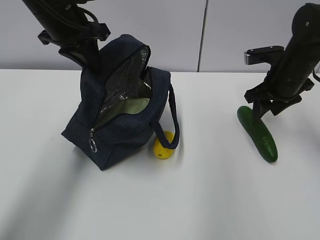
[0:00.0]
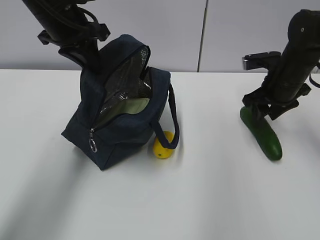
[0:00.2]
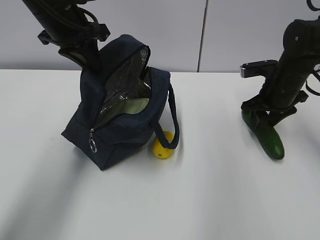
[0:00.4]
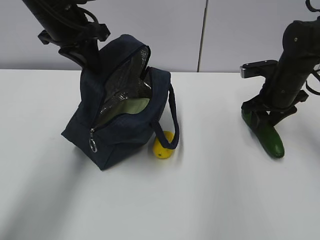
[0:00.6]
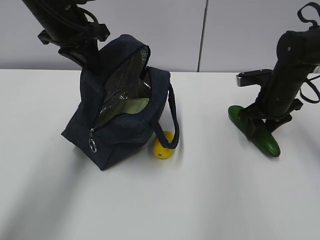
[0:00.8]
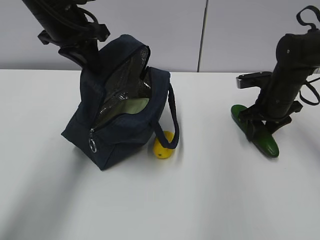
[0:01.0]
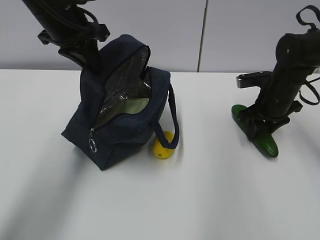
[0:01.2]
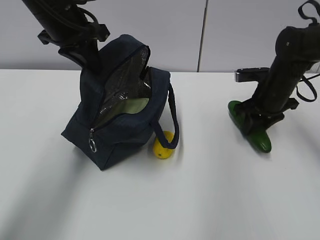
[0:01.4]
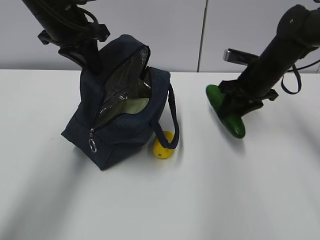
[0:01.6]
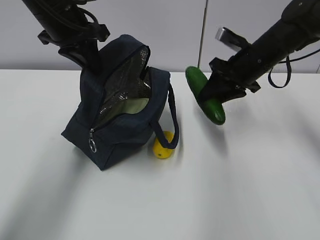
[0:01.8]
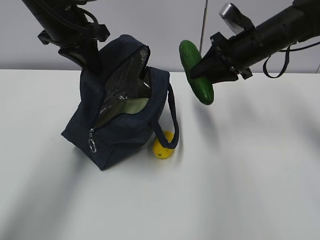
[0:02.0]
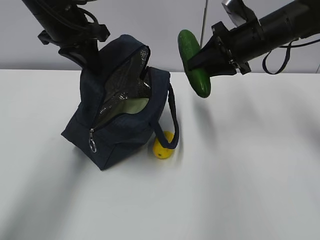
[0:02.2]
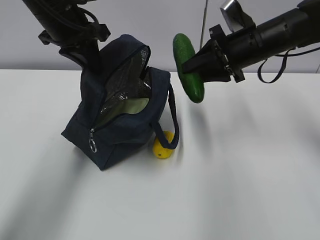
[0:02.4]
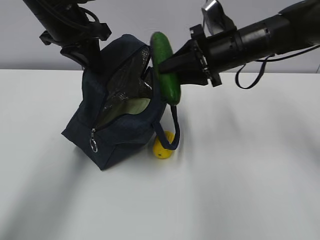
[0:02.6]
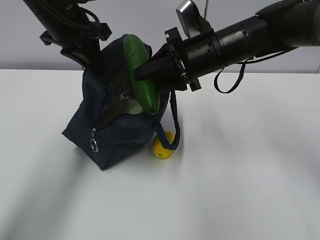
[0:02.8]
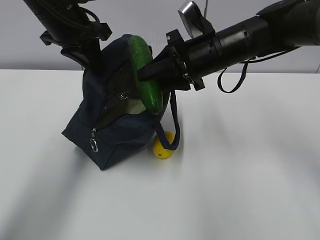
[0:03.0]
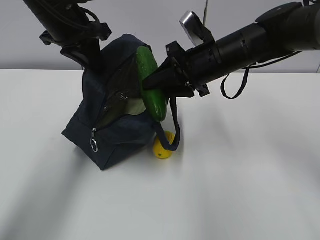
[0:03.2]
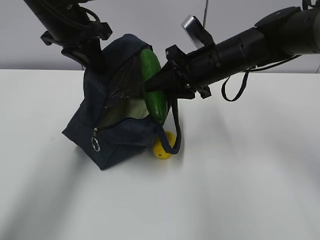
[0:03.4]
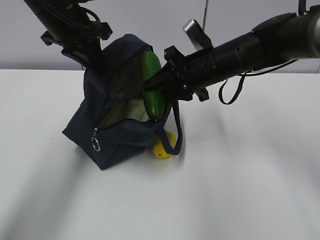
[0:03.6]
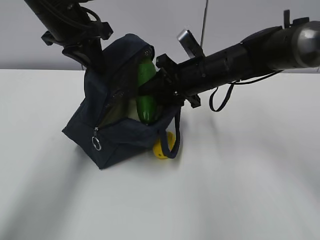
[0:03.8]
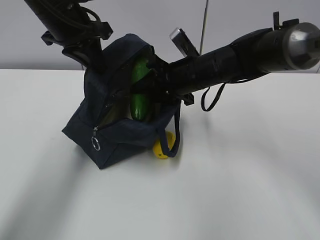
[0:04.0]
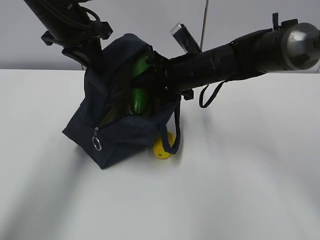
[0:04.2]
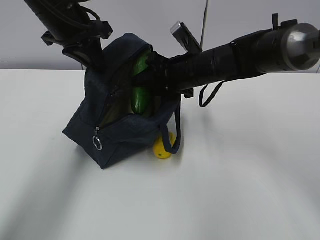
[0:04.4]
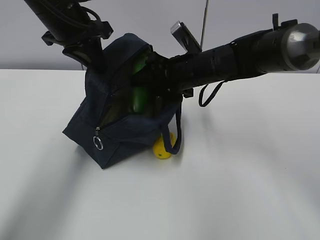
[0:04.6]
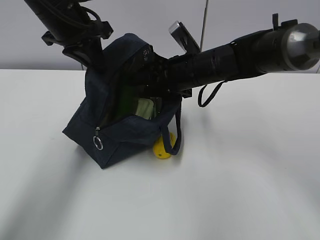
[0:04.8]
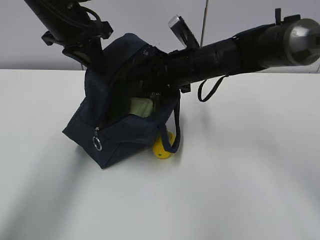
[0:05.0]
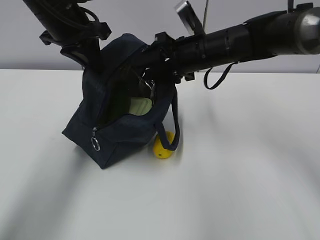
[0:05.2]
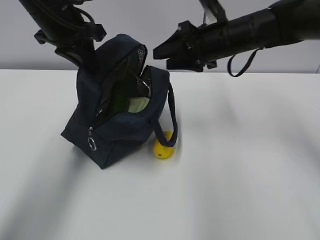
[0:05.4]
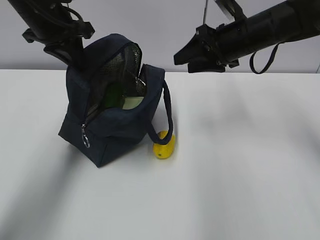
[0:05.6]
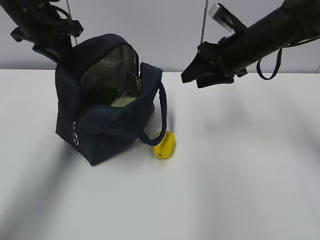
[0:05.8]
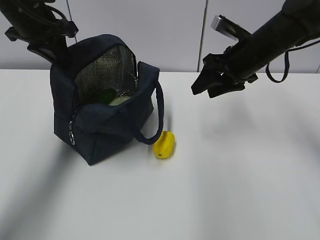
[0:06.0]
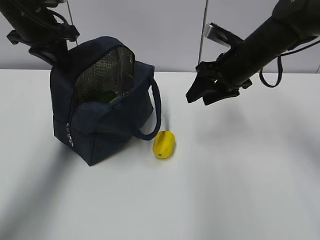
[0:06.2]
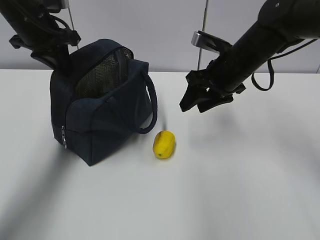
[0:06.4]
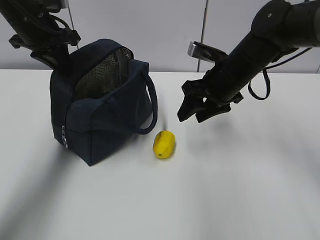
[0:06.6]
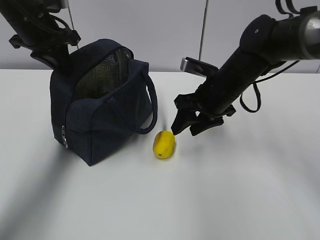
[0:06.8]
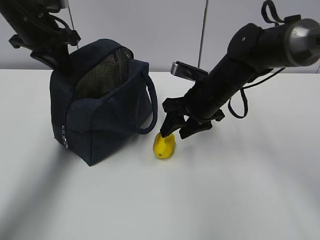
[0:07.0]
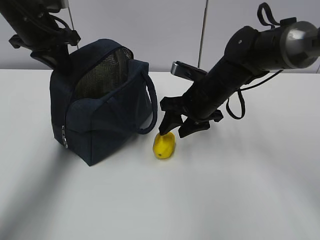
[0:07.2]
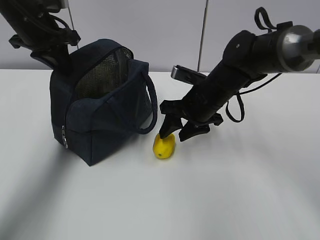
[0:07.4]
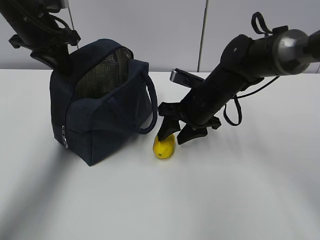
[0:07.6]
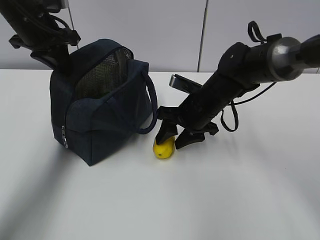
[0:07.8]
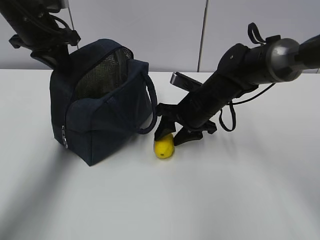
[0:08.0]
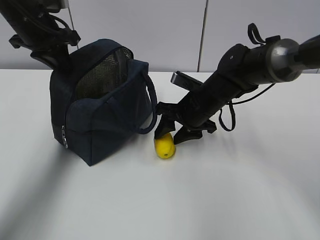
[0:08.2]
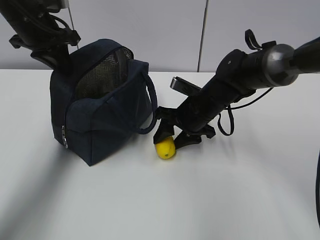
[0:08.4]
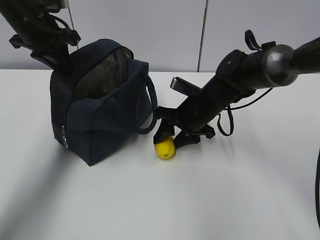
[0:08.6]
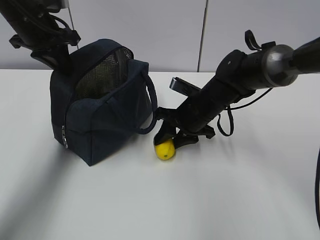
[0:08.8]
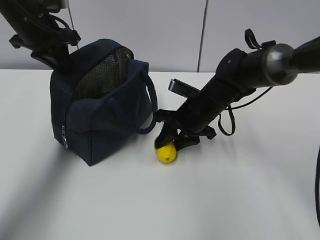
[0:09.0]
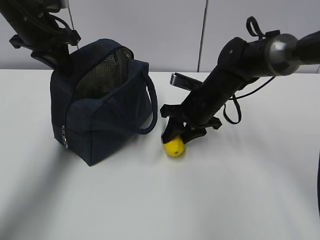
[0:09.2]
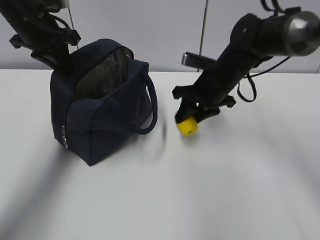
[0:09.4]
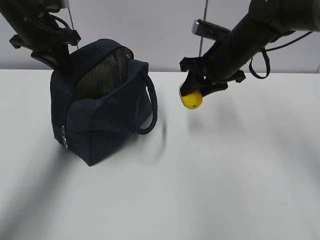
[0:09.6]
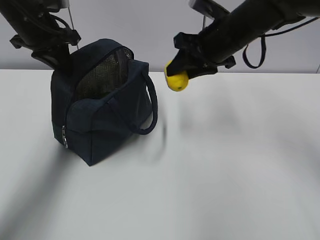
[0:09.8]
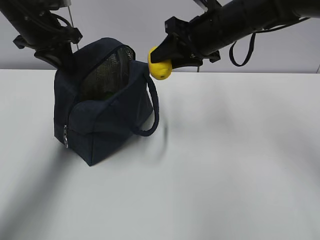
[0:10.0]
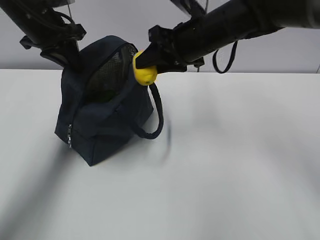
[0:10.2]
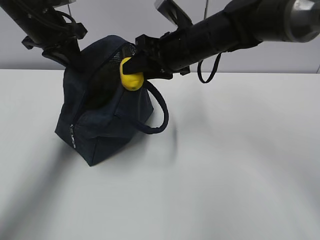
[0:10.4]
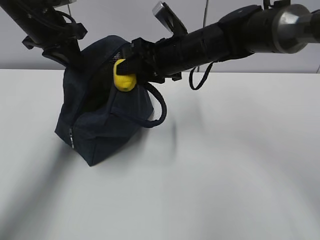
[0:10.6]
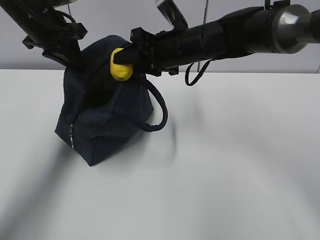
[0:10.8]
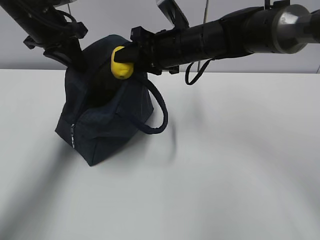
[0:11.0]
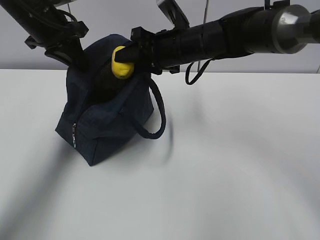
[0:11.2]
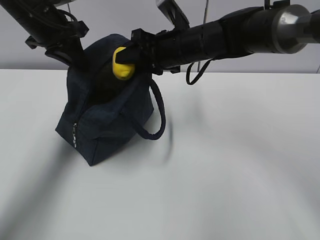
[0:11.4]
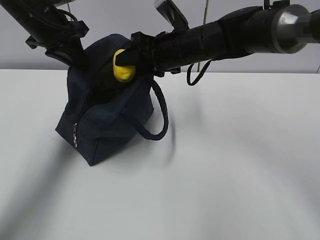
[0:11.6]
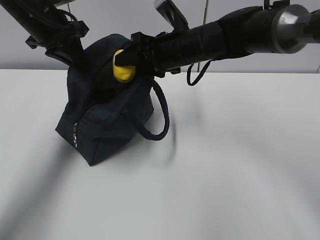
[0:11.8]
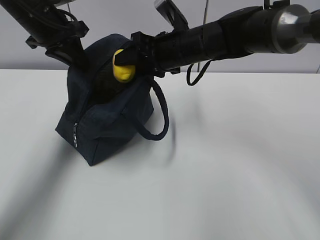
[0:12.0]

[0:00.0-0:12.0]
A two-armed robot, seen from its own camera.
Step, 0:00.2 to 0:03.4: Grab the lemon with your right hand.
Step, 0:03.6 to 0:07.0: Secure the lunch bag with your left hand.
Step, 0:07.2 to 0:08.6: Grab the lunch bag with your right hand.
Step, 0:09.0 to 0:10.8: Move the lunch bag to the right.
Step, 0:11.0 to 0:11.6: Move the lunch bag to the left.
0:01.6 to 0:03.0: The right gripper moves to the left and upward, roughly 15 cm.
0:03.0 to 0:04.4: The right gripper changes place by about 5 cm.
0:04.4 to 0:06.0: The left gripper heads to the left, covering roughly 5 cm. The right gripper shifts about 10 cm to the right.
0:06.0 to 0:07.6: The right gripper goes about 10 cm to the left and downward.
0:07.6 to 0:09.0: The grippers make only small movements.
0:09.0 to 0:10.4: The right gripper is displaced upward by some 10 cm.
0:10.4 to 0:12.0: The grippers make only small movements.

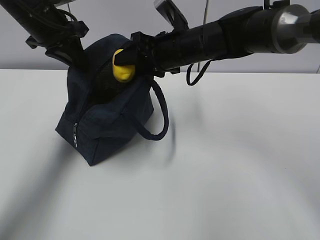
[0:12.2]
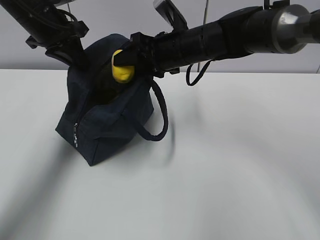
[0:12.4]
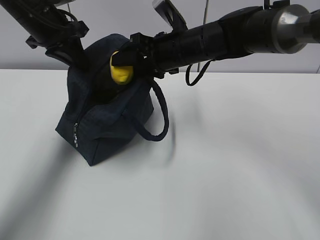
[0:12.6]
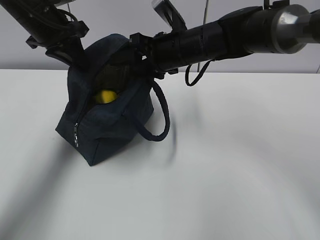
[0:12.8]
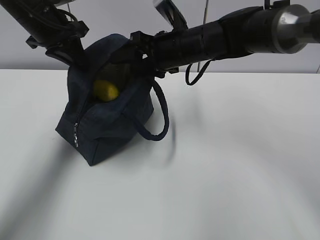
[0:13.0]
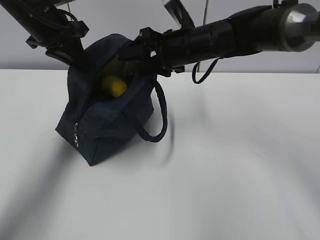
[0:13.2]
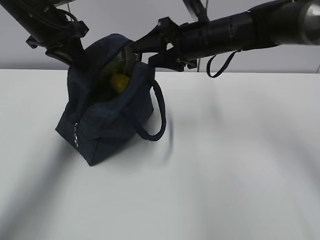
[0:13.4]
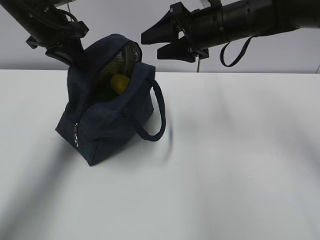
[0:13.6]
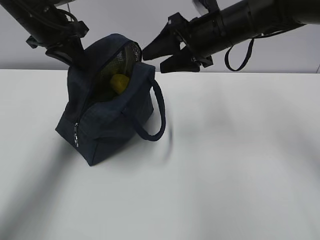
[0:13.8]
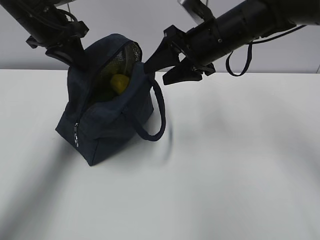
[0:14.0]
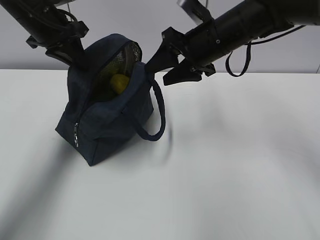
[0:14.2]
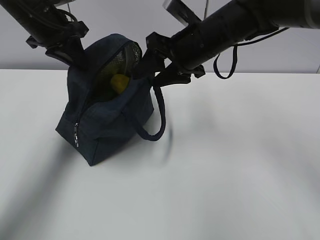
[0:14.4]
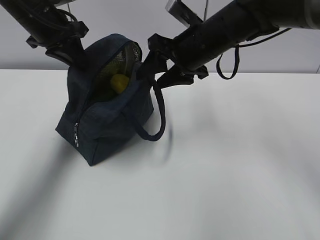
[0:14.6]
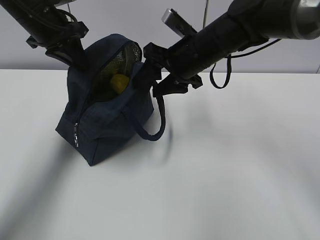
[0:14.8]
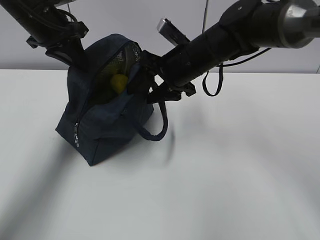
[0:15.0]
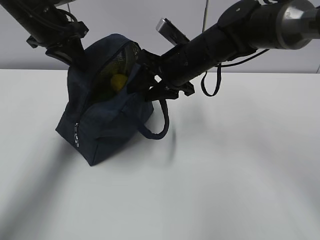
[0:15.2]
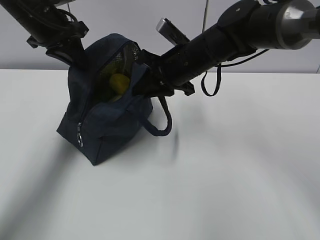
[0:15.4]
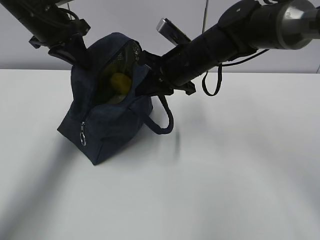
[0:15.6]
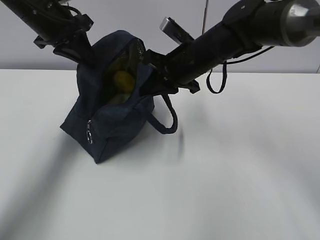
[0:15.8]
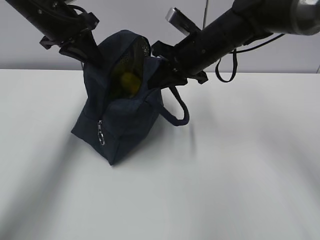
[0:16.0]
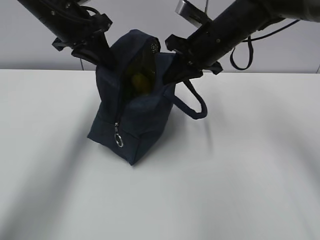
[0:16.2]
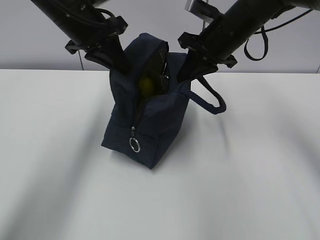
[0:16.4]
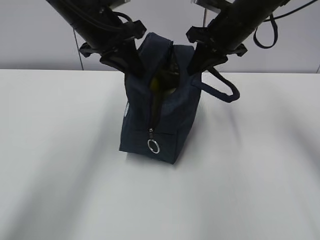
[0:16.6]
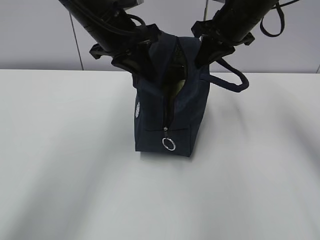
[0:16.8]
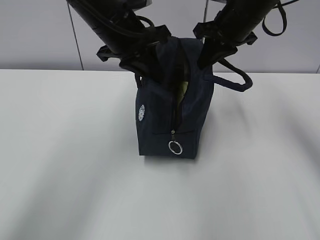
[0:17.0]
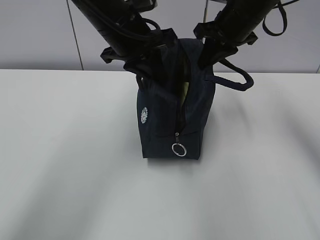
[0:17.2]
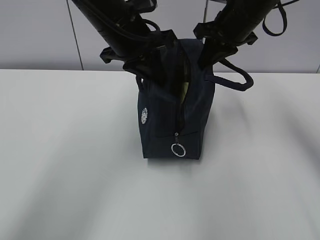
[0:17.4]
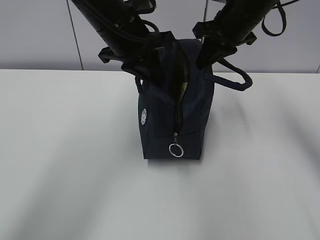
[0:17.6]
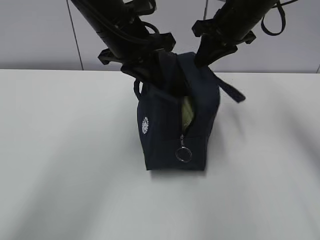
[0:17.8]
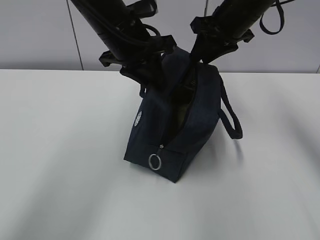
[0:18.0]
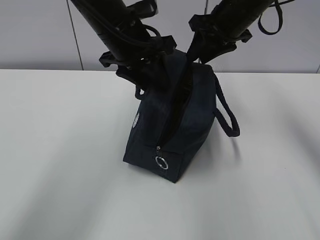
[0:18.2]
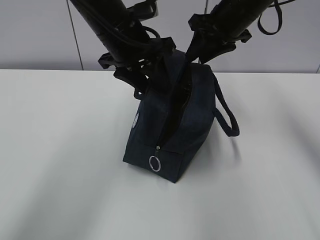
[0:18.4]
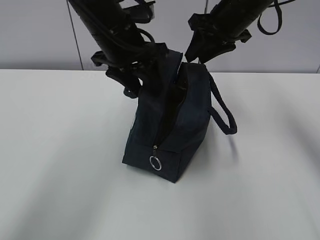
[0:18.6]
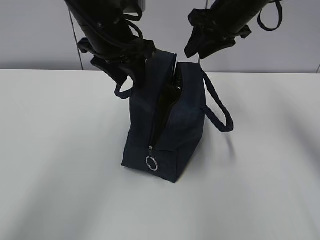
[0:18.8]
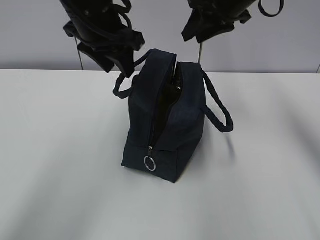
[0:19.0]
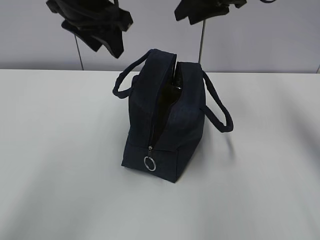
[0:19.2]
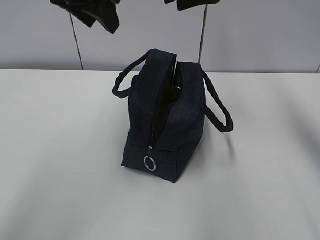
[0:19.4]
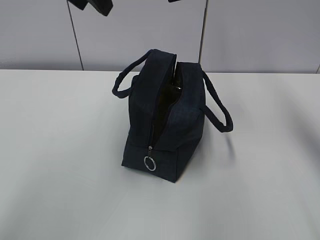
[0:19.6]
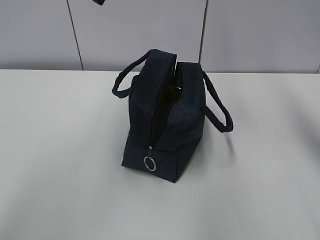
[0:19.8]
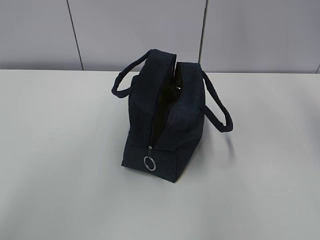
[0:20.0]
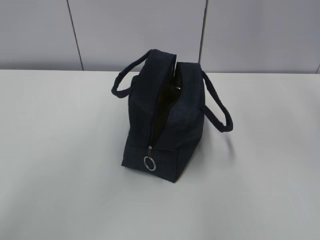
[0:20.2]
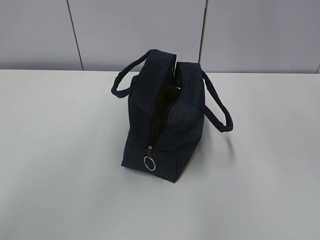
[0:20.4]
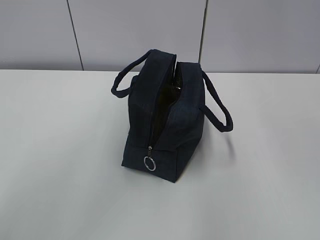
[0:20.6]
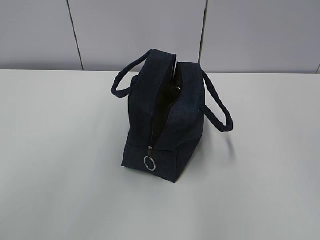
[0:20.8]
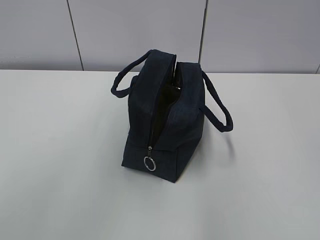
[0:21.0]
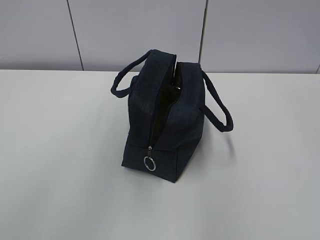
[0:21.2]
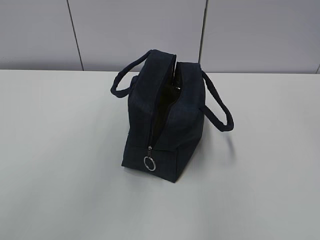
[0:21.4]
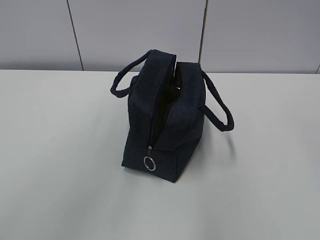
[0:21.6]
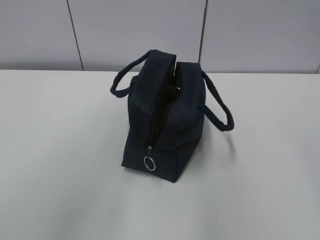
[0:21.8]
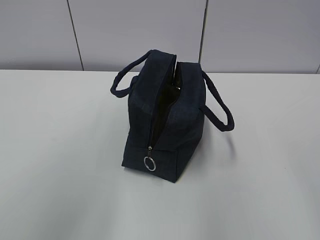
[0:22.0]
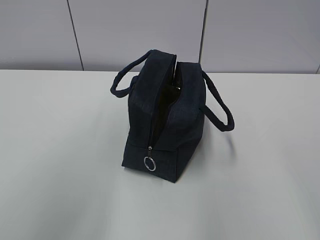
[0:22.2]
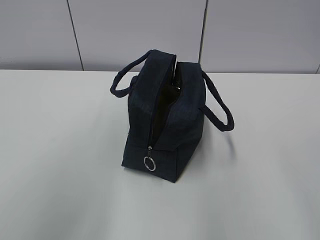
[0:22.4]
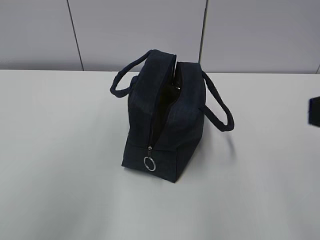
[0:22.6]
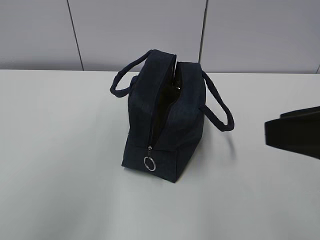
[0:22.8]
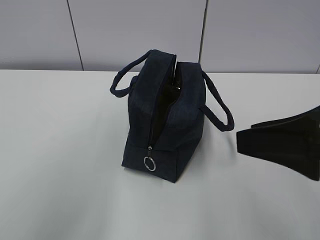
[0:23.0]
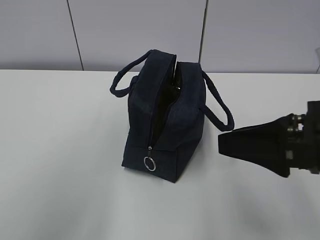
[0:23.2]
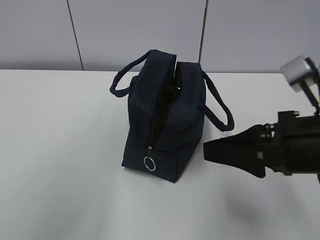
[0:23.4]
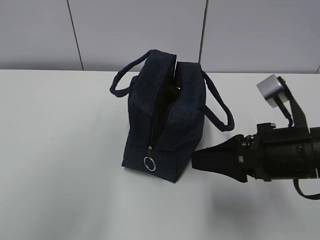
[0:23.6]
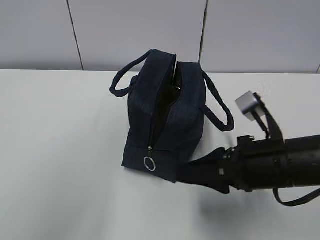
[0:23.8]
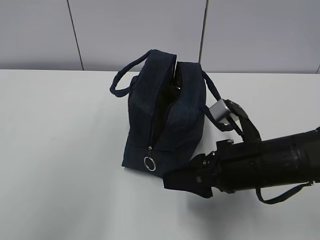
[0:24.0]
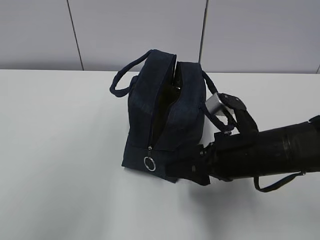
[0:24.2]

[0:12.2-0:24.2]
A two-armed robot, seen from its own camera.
0:12.2 to 0:13.8: The right gripper is displaced to the right by some 5 cm.
0:13.8 to 0:15.2: The right gripper heads downward, covering some 5 cm.
0:15.2 to 0:16.6: The right gripper heads to the right and upward, covering about 10 cm, and closes. Meanwhile the left gripper travels to the right by about 10 cm.
0:16.6 to 0:18.2: The right gripper opens its fingers; the left gripper opens its fingers.
0:18.2 to 0:19.8: The right gripper goes roughly 10 cm upward, while the left gripper shifts approximately 15 cm upward and to the left.
0:19.8 to 0:21.2: The right gripper heads backward and upward, covering about 35 cm, while the left gripper moves upward, backward and to the left, approximately 15 cm.
0:21.2 to 0:22.6: The right gripper shifts some 25 cm downward.
0:22.6 to 0:24.2: The right gripper goes about 25 cm downward, forward and to the left.
